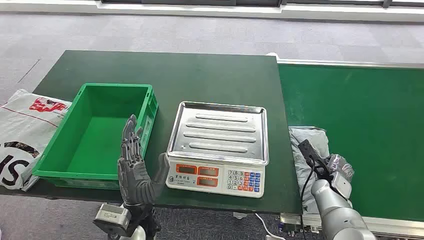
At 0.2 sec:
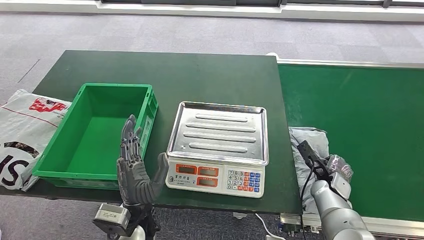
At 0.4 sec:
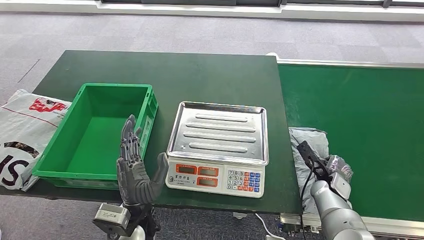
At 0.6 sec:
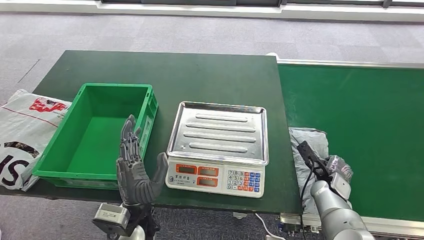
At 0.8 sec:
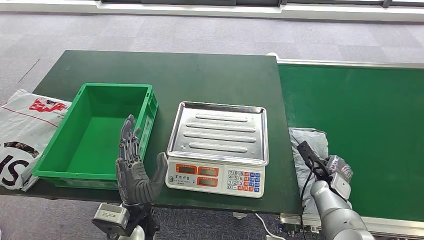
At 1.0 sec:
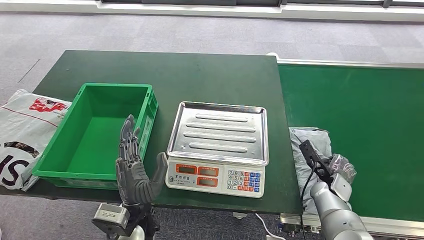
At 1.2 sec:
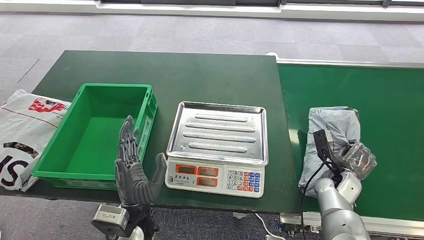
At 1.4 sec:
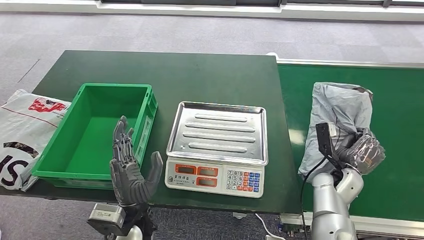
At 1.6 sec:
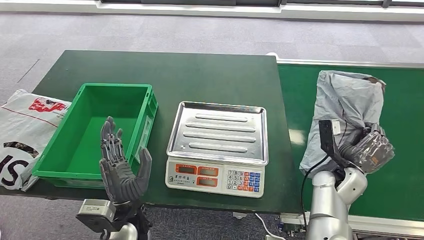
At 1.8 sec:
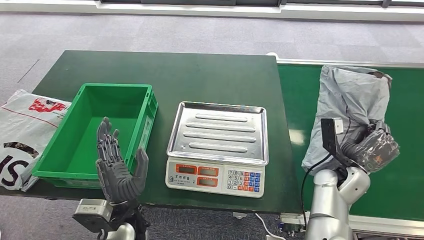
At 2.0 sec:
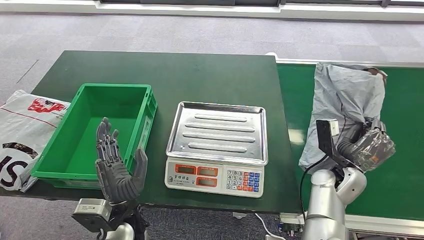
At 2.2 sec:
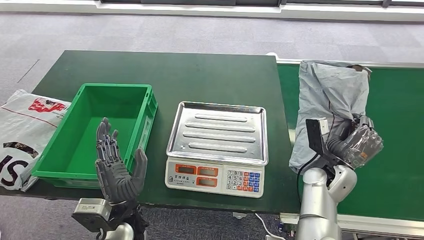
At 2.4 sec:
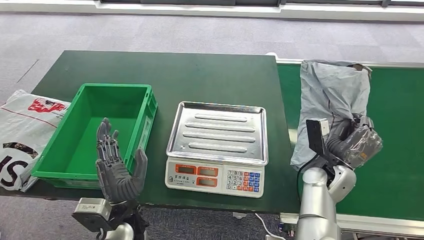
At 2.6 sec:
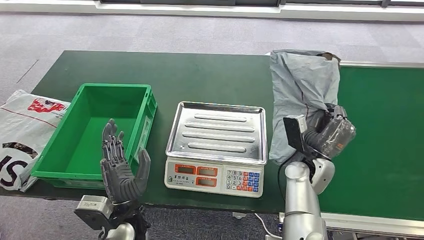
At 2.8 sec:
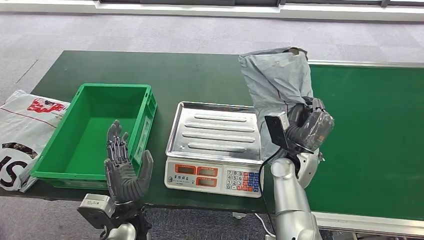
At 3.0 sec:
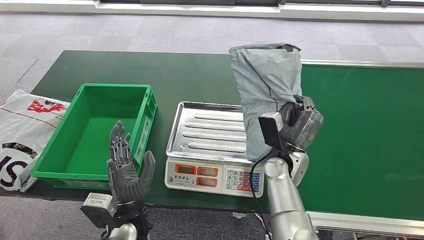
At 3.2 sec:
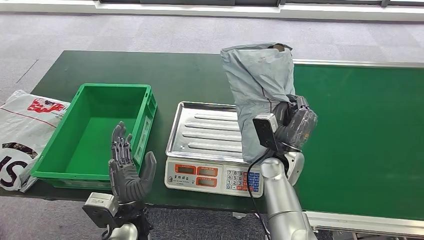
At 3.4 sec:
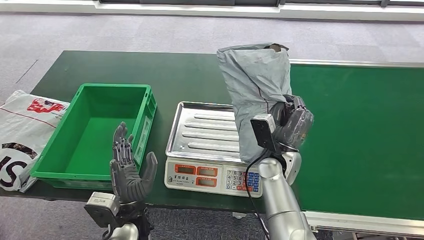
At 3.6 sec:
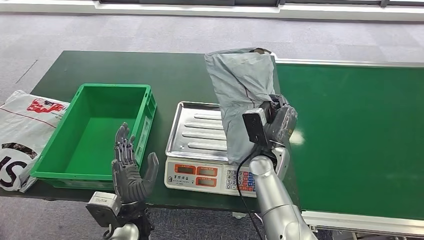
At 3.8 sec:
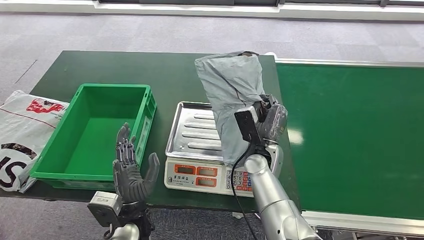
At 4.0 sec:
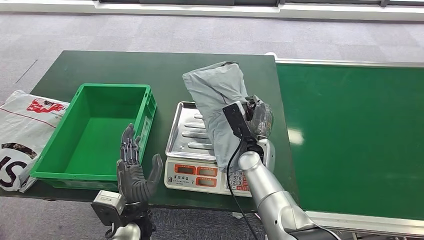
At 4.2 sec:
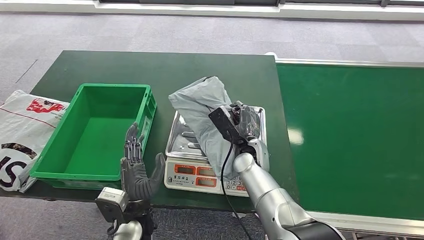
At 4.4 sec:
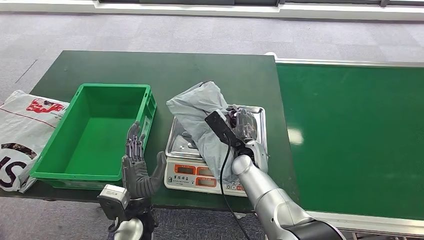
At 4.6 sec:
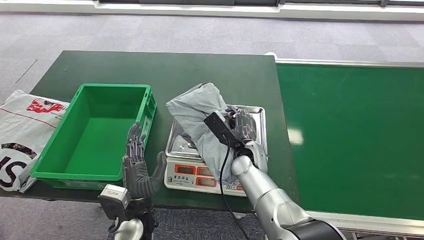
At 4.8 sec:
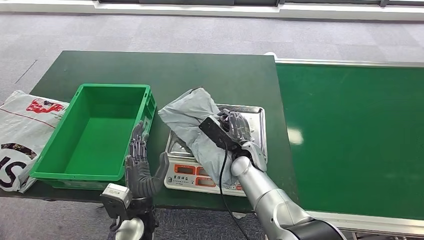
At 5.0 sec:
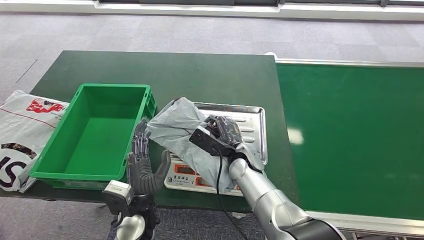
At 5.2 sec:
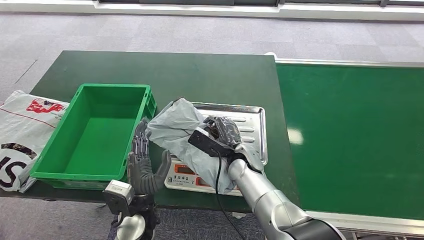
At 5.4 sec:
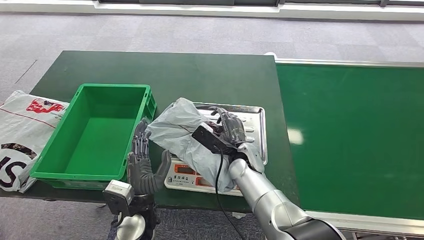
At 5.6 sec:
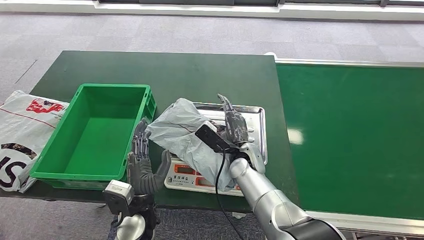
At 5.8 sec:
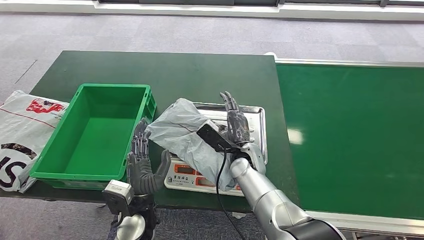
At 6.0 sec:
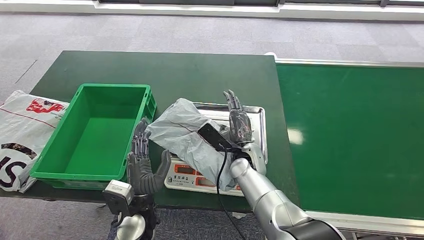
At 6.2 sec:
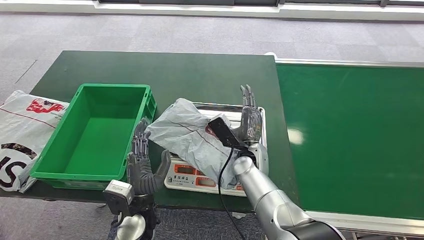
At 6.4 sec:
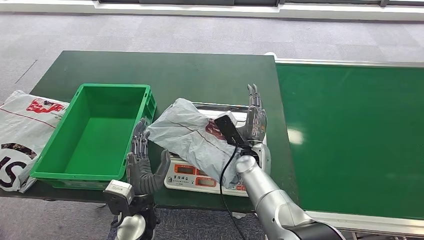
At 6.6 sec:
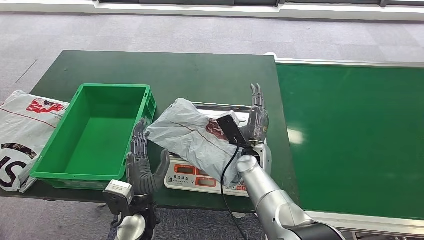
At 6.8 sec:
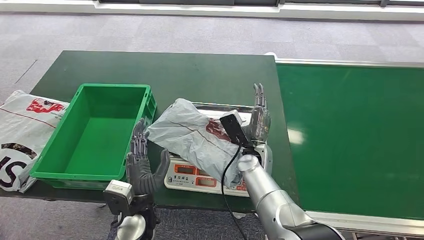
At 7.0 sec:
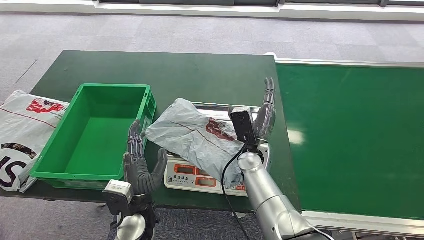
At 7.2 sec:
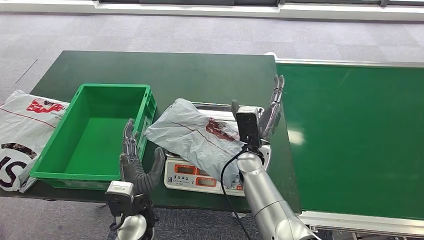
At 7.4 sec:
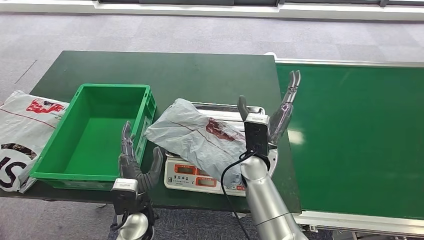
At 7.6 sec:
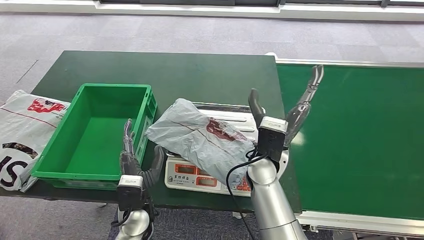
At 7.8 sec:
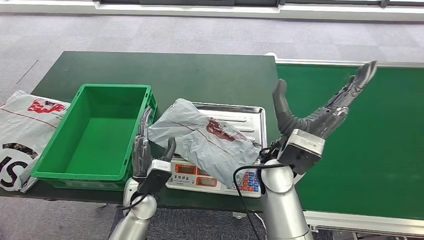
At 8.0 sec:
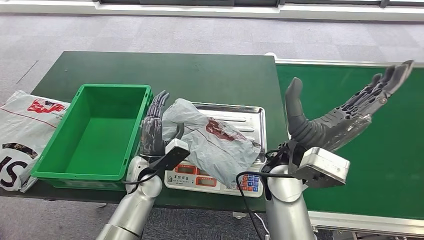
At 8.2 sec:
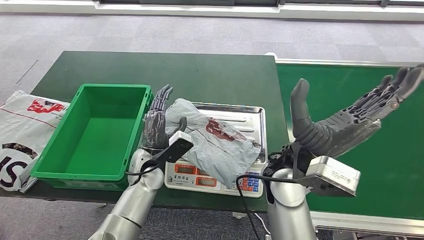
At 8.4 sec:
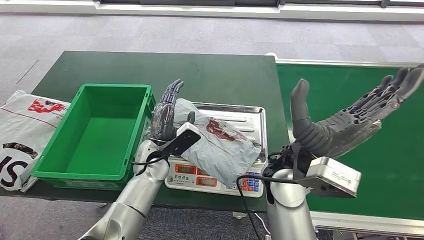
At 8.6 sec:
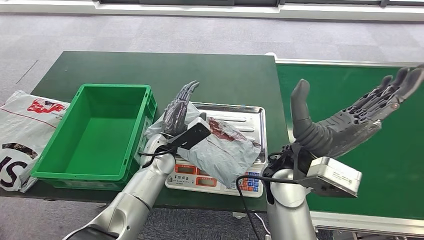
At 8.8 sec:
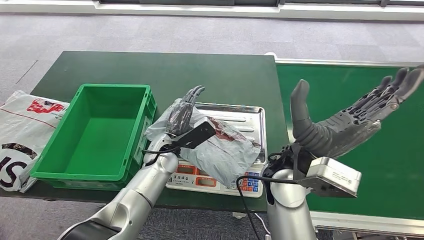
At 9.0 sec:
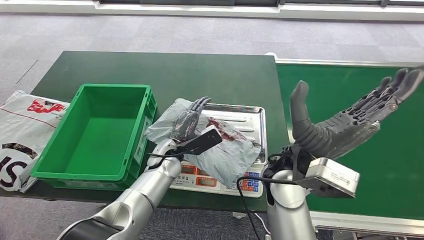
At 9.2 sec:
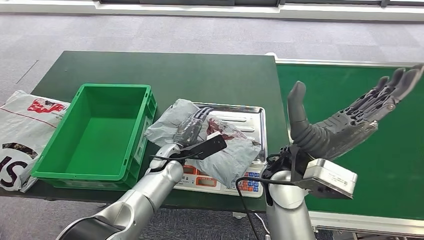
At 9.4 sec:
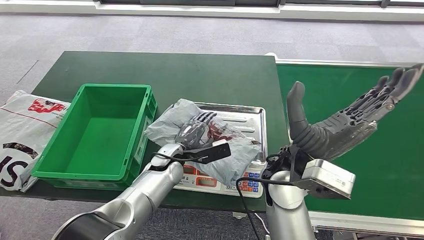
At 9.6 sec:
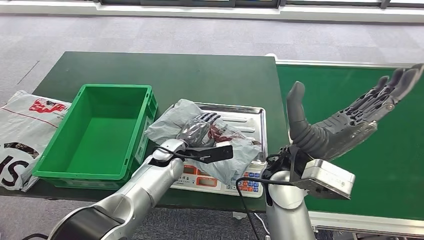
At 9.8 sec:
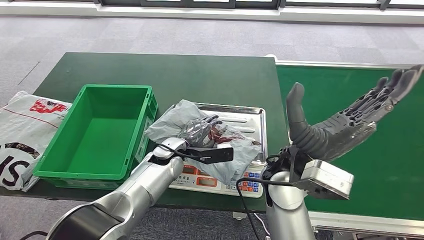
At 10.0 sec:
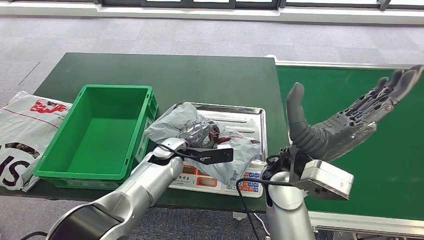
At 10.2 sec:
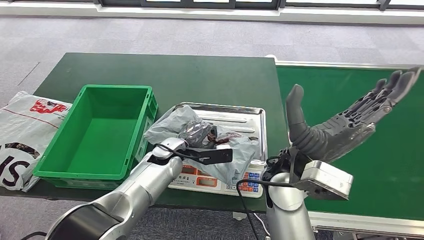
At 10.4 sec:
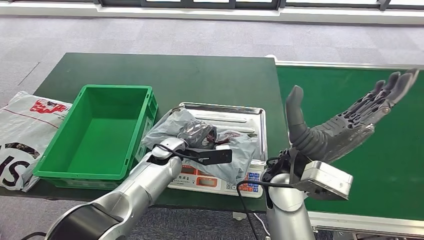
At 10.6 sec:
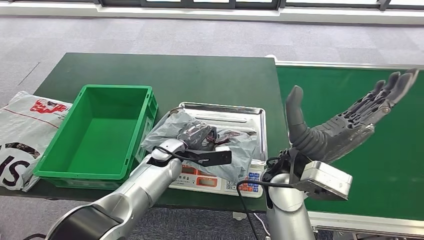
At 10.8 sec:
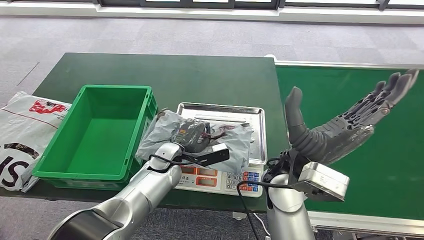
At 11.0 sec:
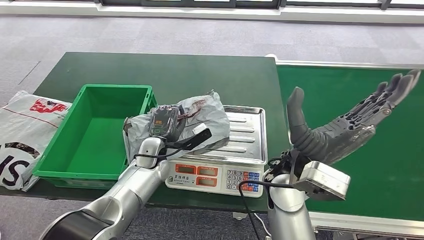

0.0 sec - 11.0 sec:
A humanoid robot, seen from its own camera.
Step, 0.0 sec - 2.2 sec: Pick up the package from the conveyor belt.
Step, 2.4 sec - 7.0 sec: Place the package onto the inbound machine.
3.2 sec - 4.8 sec: The right hand travels to the left by some 10 cm.
4.8 sec - 6.2 sec: The hands move only a little.
6.2 sec - 7.8 sec: The right hand travels upward by roughly 15 cm. The left hand ends up about 5 cm from where it was.
7.8 sec - 9.4 sec: The left hand travels forward and to the right by some 10 cm.

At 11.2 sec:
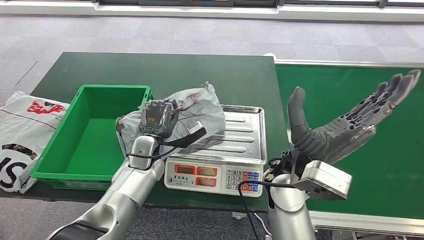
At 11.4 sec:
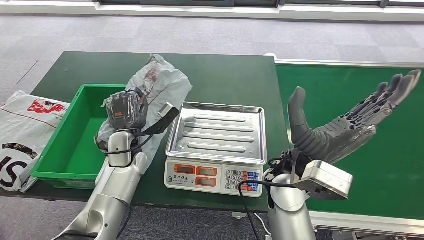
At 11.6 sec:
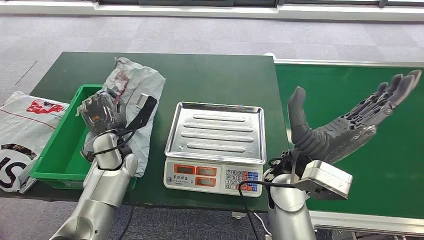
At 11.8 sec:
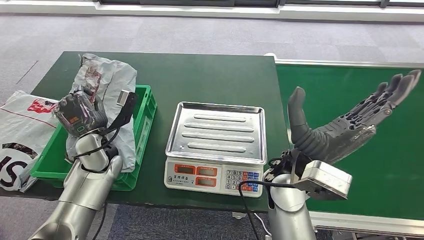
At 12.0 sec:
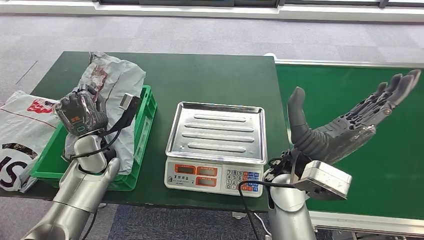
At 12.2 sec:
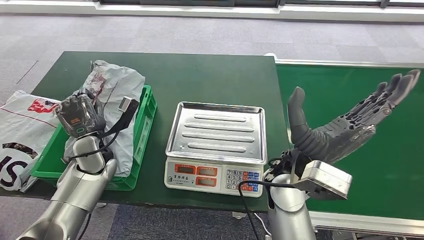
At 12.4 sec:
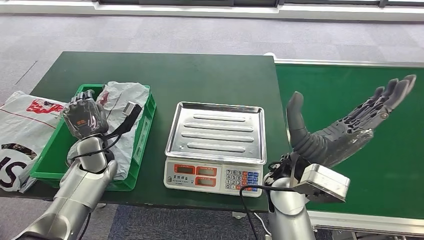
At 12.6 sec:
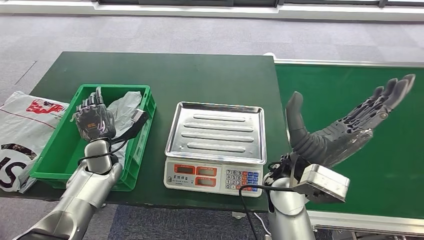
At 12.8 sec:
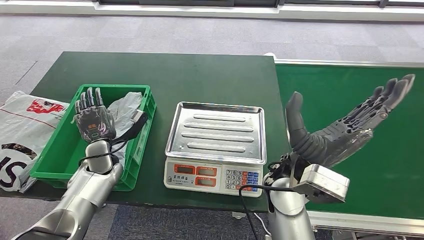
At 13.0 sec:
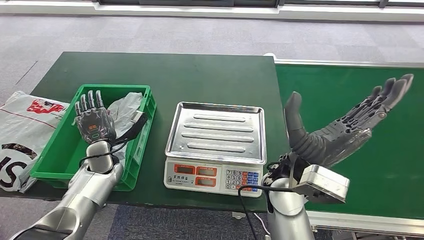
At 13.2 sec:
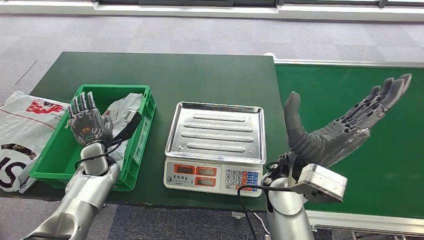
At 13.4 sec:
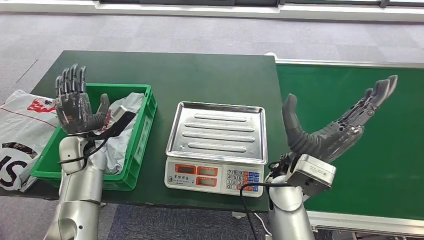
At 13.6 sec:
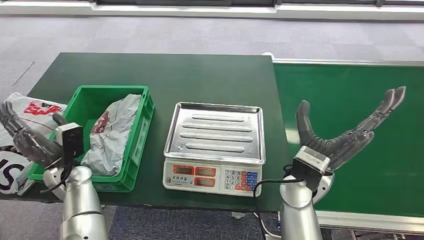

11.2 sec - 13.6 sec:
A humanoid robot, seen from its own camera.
Step, 11.4 sec - 13.4 sec: Place the package into the parcel locker.
